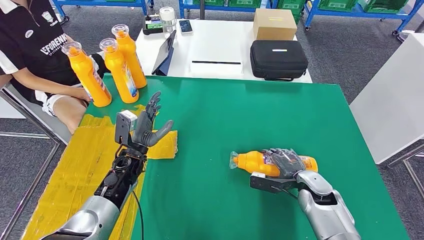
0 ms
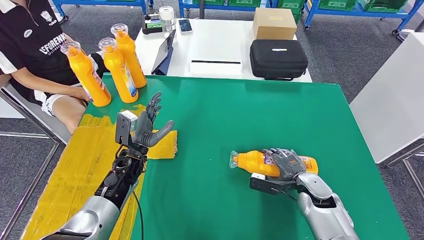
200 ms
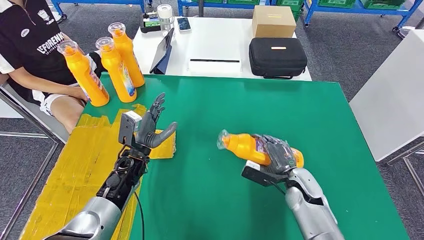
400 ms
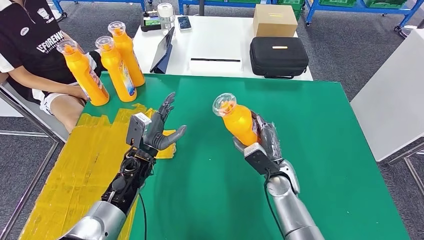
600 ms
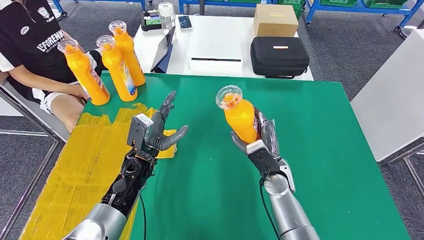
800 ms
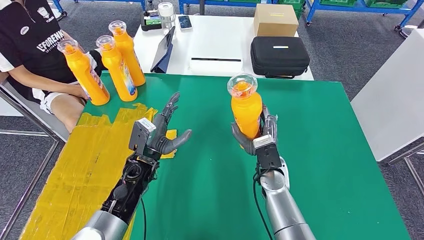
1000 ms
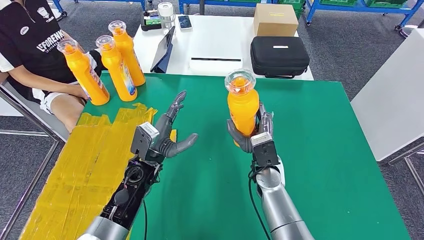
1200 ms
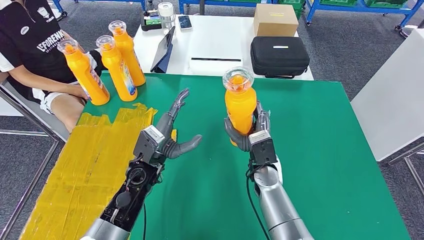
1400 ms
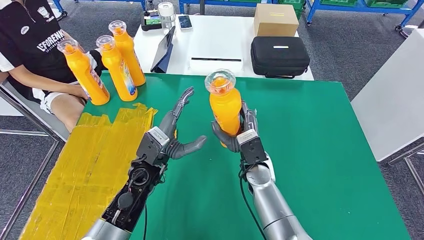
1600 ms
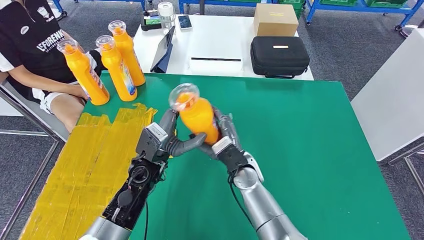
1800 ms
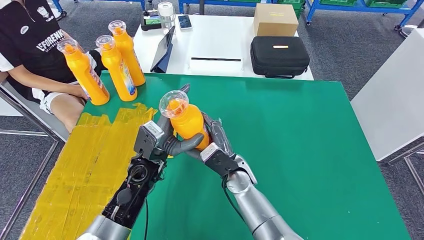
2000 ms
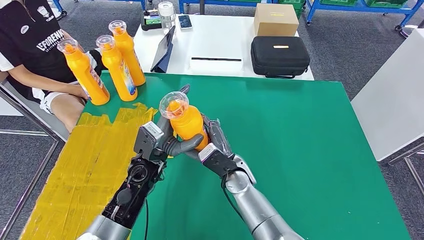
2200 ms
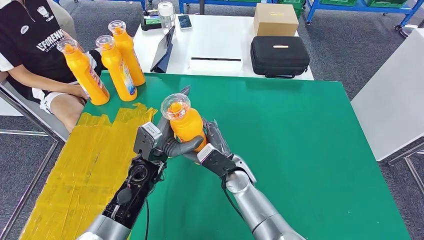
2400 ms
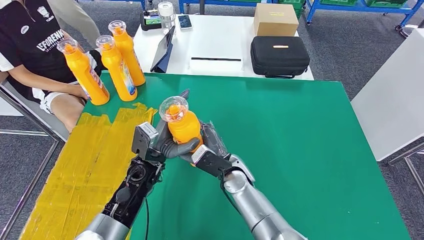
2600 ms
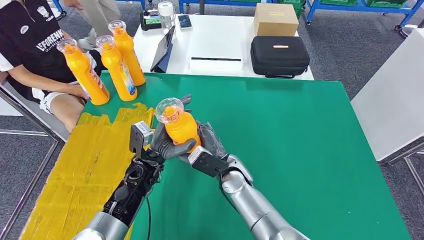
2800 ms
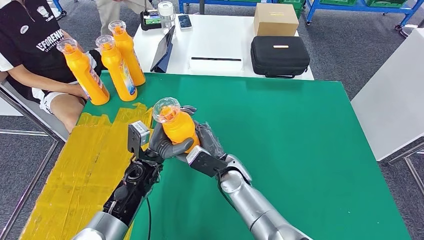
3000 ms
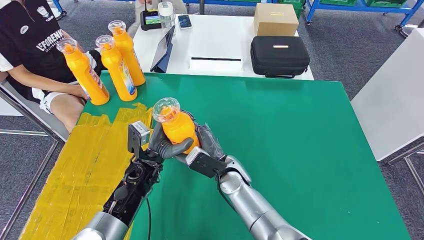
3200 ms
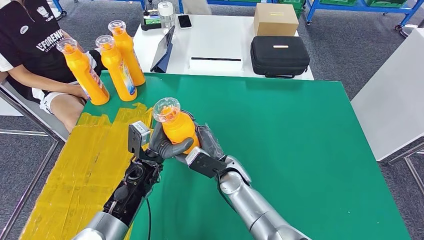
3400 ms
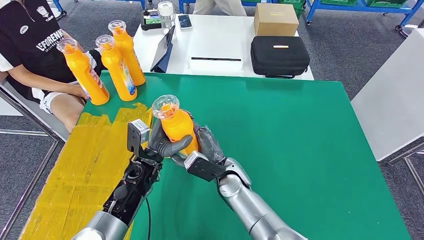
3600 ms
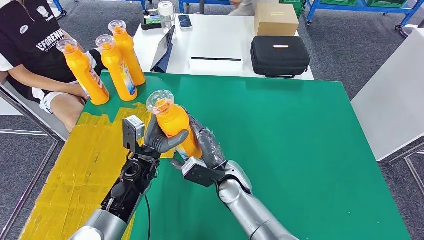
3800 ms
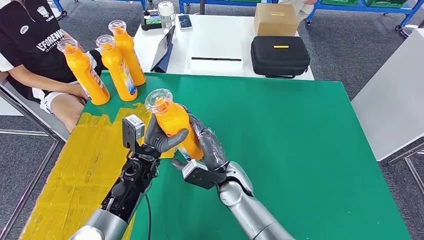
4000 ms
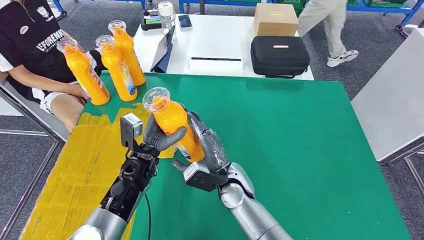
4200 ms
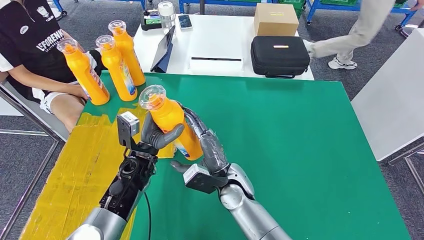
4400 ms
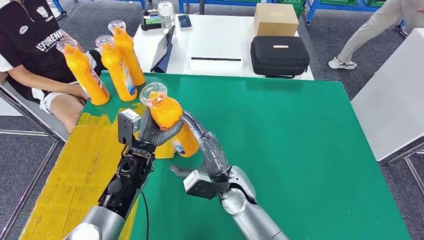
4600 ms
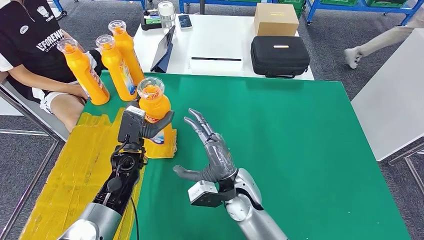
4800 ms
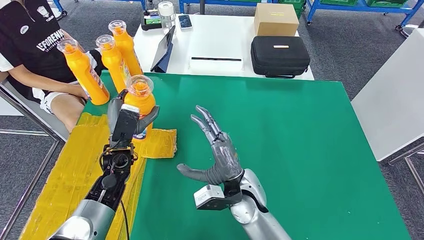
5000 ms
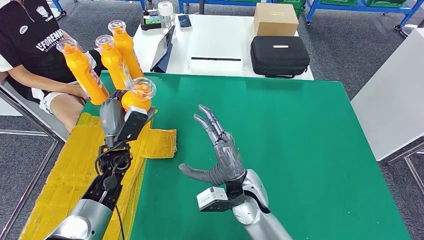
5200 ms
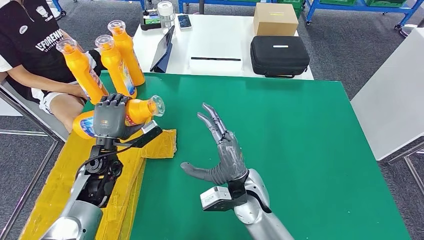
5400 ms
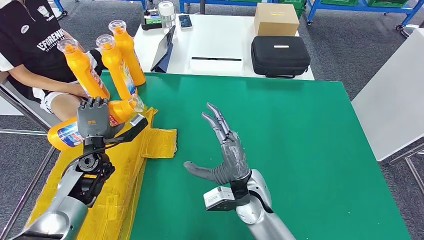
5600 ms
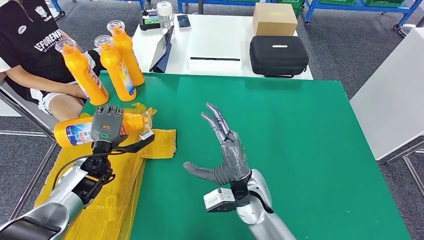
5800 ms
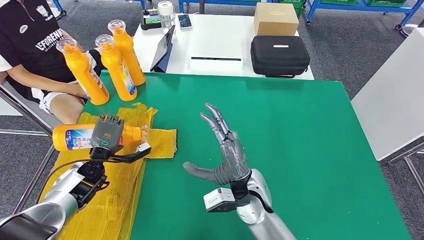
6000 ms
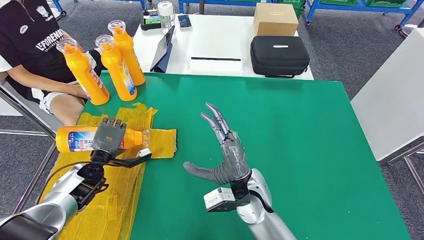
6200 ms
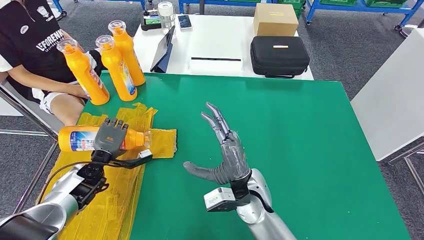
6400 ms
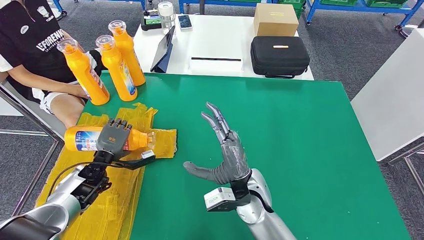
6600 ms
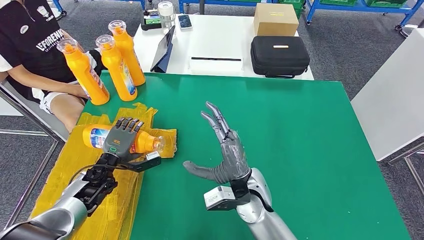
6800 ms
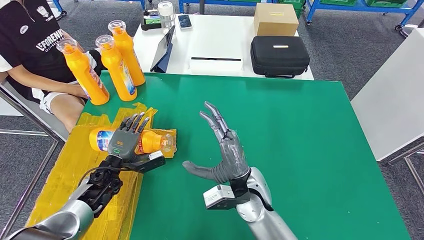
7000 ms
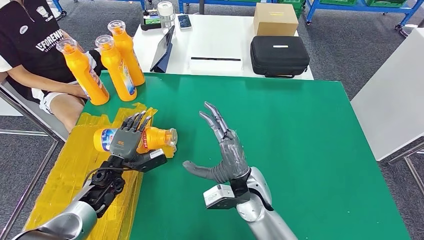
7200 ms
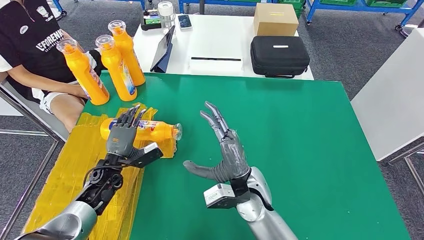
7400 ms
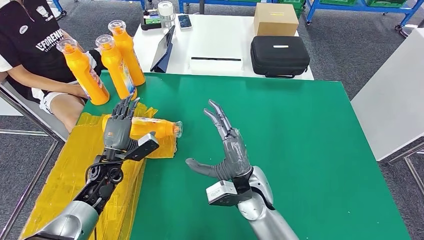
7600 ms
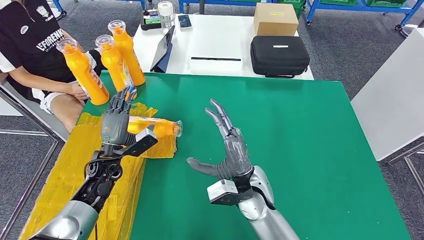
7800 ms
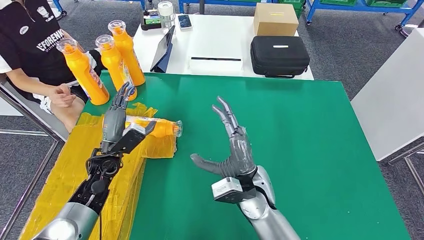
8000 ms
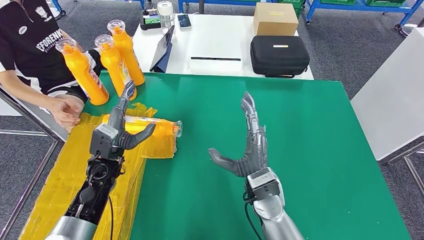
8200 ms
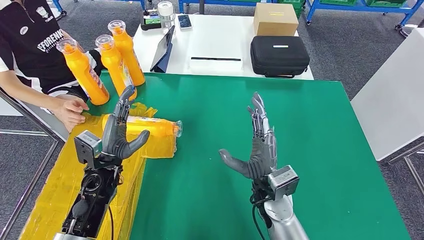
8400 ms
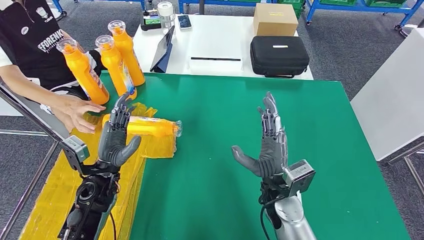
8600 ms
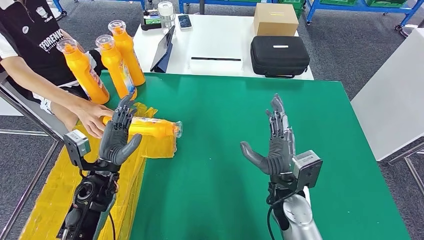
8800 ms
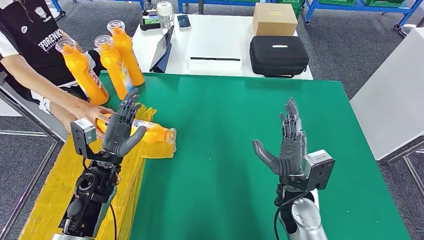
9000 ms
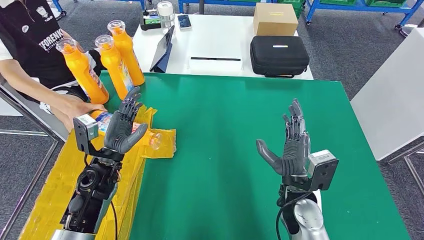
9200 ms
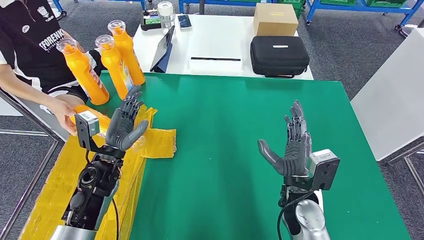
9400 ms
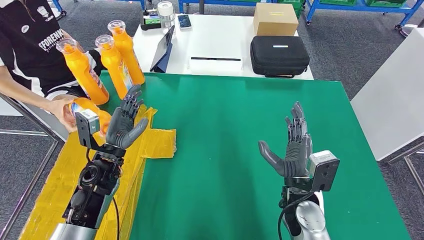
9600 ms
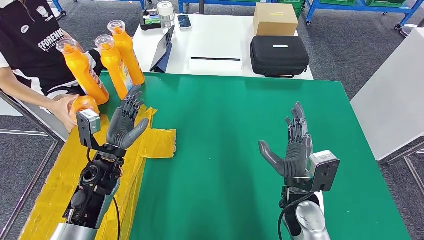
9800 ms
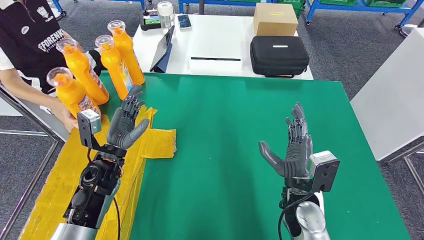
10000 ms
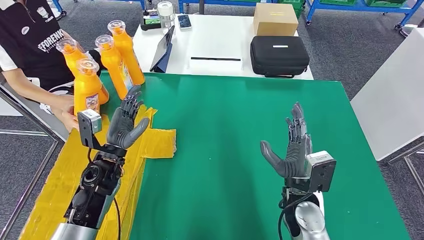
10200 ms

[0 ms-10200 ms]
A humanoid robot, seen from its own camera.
Step, 0 ms to 3200 ms: Pick up the fast-moving consumer goods bottle from the table.
Step, 3400 ms to 10000 ms: Flip the fast-moving consumer goods bottle to the front side.
1400 ms to 3000 ms: The right hand goes approximately 10 cm to the left.
3000 ms to 4400 ms: The hands move only a little.
5800 ms to 7200 ms: The left hand shifts by approximately 5 cm.
7200 ms to 8800 ms: The left hand travels upward and backward by about 10 cm. The right hand goes about 10 cm to the right.
8800 ms to 10200 ms: The hands make only small movements.
